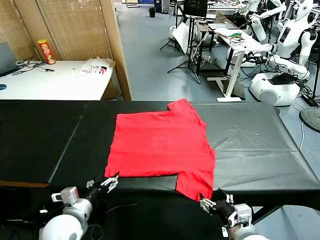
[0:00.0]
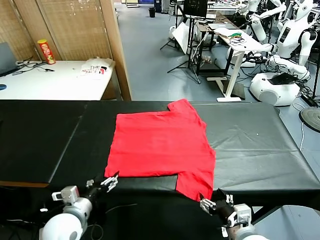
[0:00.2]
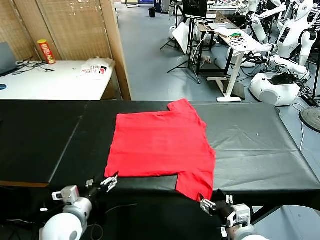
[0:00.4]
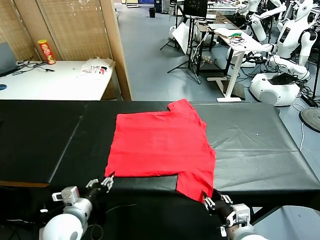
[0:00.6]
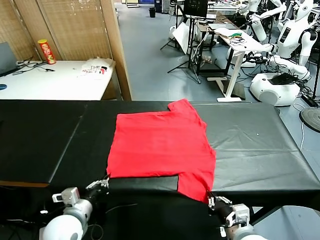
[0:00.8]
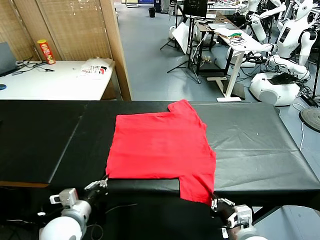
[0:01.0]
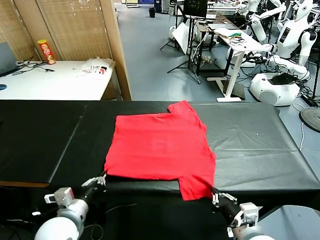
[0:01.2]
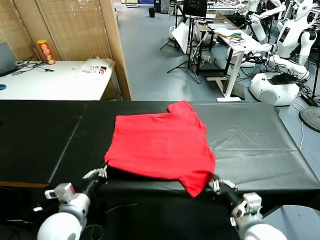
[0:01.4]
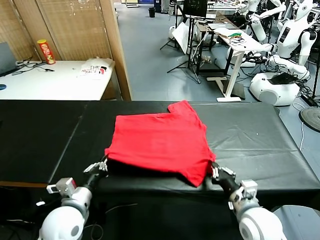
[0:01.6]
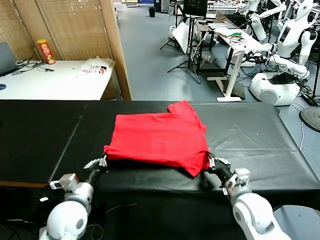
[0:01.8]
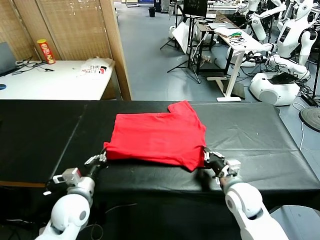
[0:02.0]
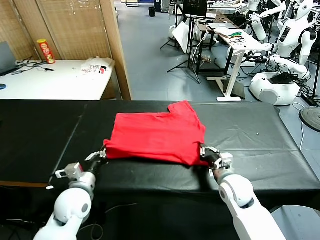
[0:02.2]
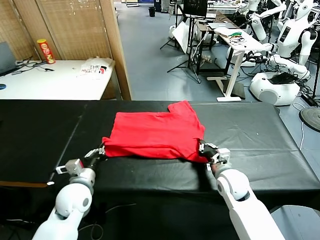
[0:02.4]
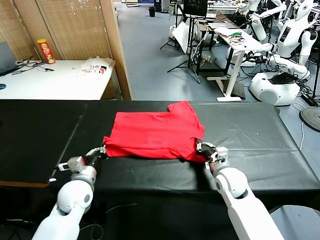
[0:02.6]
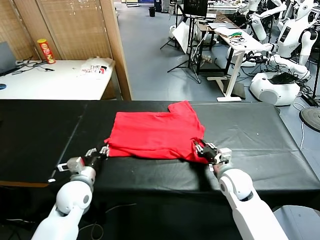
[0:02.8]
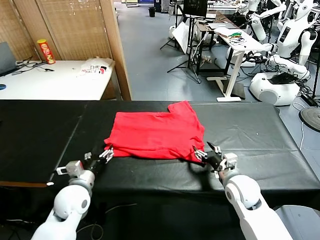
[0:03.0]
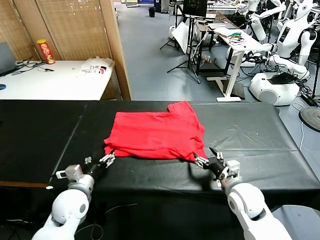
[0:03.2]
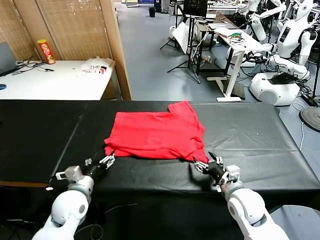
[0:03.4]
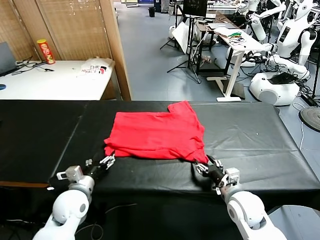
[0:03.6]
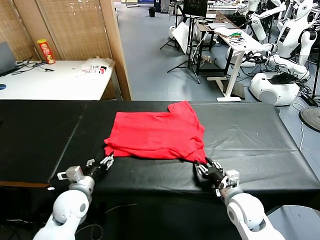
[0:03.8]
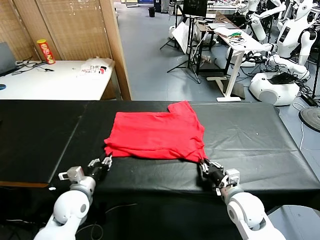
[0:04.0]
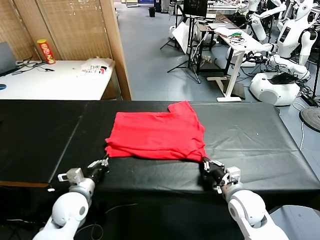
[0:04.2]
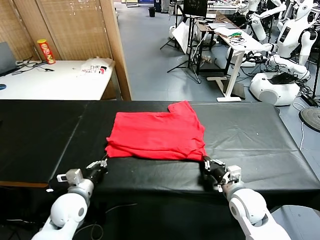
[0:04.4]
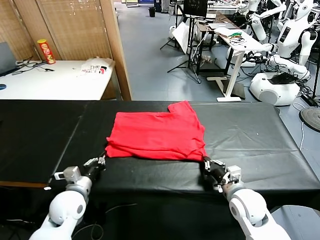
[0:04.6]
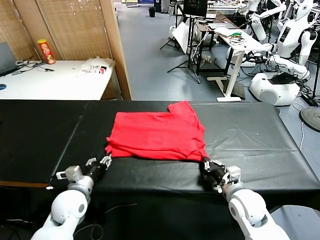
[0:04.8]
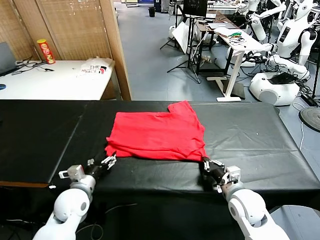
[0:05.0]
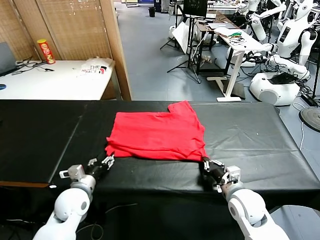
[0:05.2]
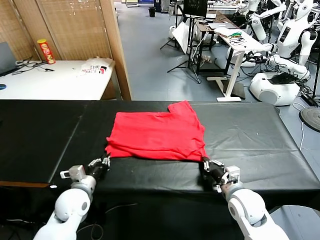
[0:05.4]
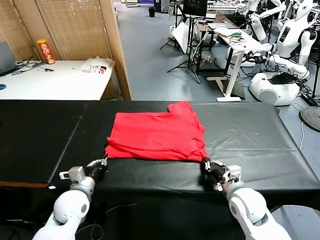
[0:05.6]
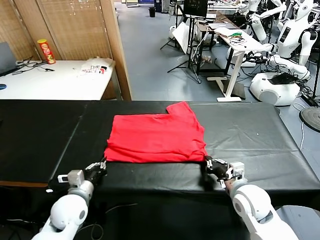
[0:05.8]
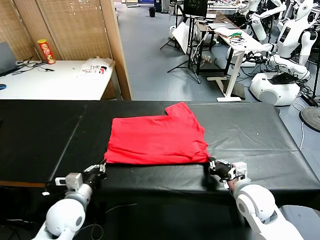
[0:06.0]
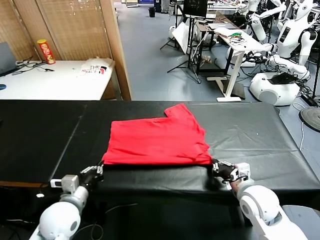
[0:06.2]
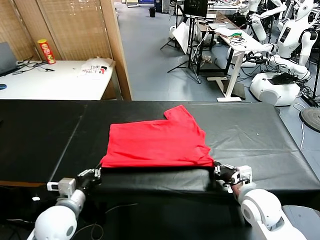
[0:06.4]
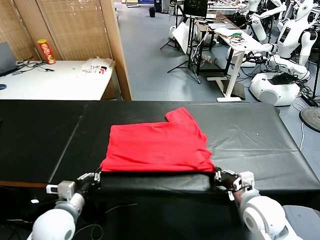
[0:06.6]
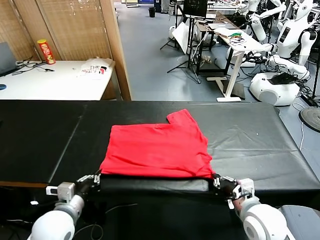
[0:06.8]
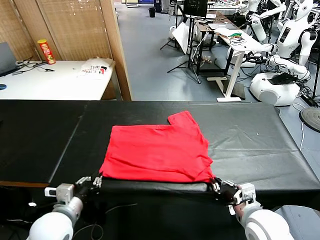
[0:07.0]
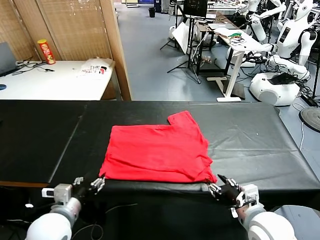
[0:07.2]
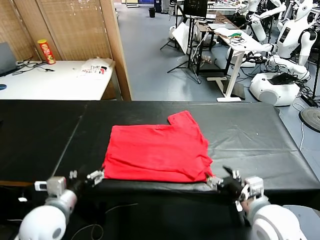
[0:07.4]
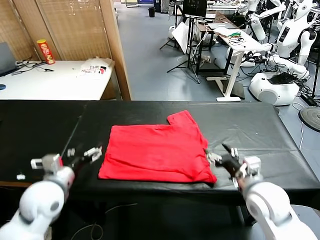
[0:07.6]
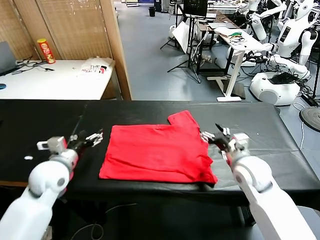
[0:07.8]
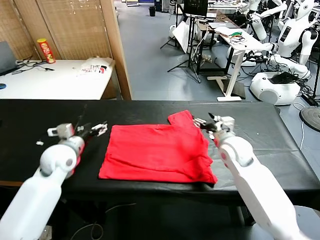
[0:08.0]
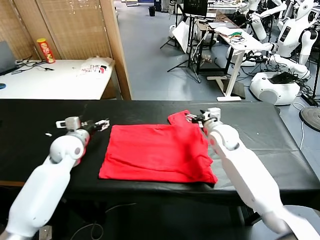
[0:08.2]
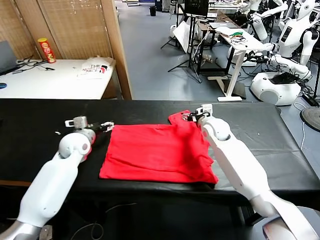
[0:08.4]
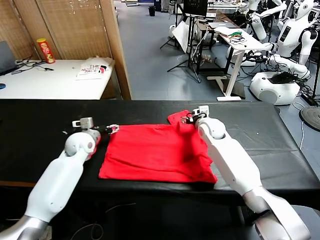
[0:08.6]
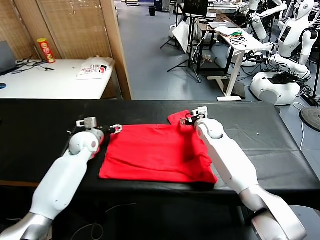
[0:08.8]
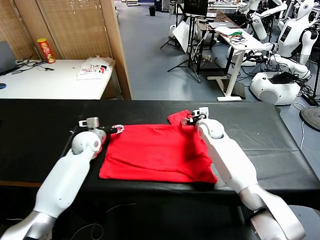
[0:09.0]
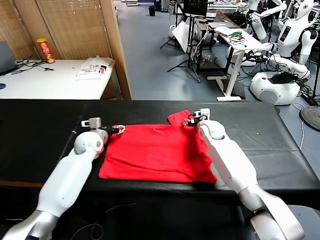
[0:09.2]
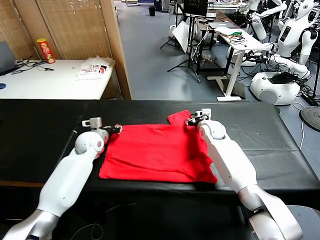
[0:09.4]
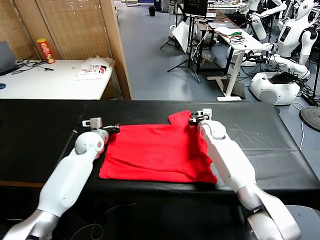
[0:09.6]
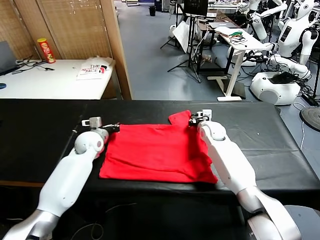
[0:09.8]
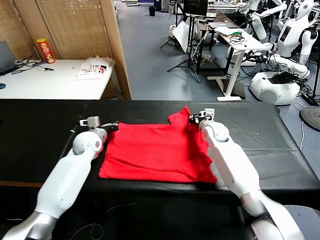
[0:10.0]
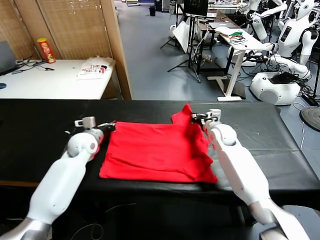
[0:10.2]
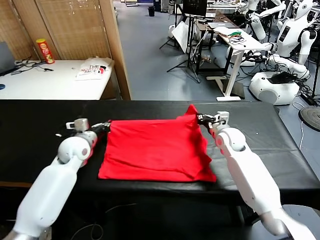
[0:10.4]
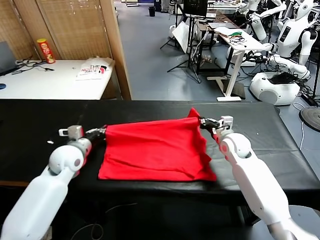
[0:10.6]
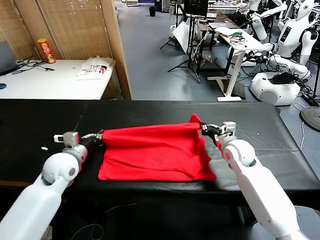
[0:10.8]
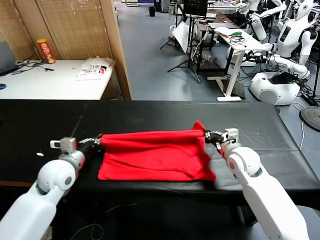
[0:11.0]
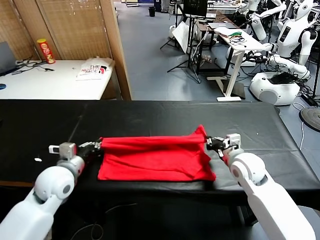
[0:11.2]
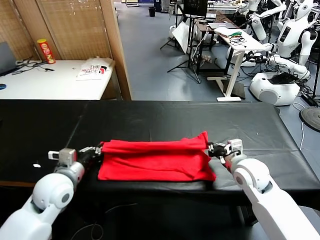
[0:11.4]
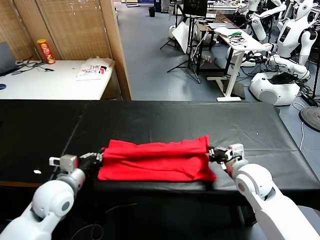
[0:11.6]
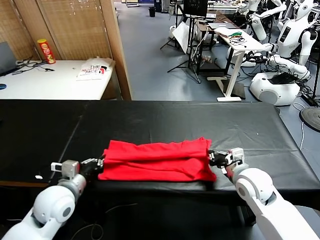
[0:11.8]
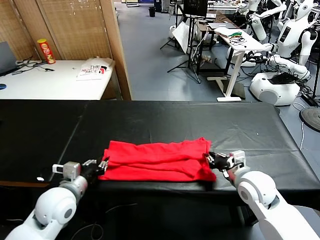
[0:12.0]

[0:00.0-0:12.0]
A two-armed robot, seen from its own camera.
Task of the whole recording: fold and organize the clothes.
Step, 0:00.0 to 0:00.8: use both grippers simultaneously to clamp the lower edge of the clothing fabric.
Step, 0:01.0 to 0:03.2: use both grippers to drag the lower edge of the fabric forward and fold it over the upper edge.
Step, 0:03.4 to 0:07.2: Drag the clothes downward with both gripper.
Step, 0:07.4 to 0:09.6: use both grippers simultaneously to clamp the upper edge of the clothing fabric.
0:01.6 to 0:03.0: The right gripper reaches roughly 10 cm forward, then returns, and opens; the left gripper shifts by roughly 5 cm, and opens.
0:03.0 to 0:04.4: The left gripper closes its fingers; the right gripper closes its fingers.
0:04.4 to 0:06.0: The left gripper opens and closes again.
0:06.0 to 0:07.6: The right gripper is displaced forward and upward by roughly 10 cm, and opens its fingers. The left gripper shifts approximately 10 cm upward and forward, and opens up.
0:07.6 to 0:09.0: The two grippers go roughly 20 cm forward.
0:09.0 to 0:10.4: The left gripper travels backward by about 10 cm, and closes its fingers. The right gripper heads backward and to the right, covering approximately 10 cm, and closes.
0:10.4 to 0:12.0: Both grippers move backward, roughly 15 cm. The left gripper opens its fingers, while the right gripper opens.

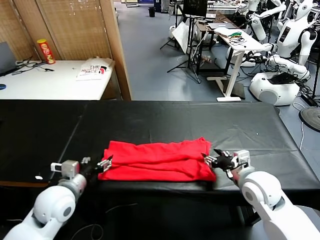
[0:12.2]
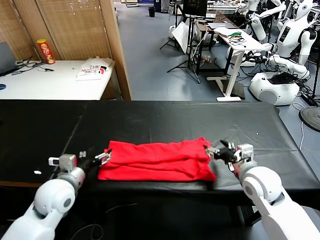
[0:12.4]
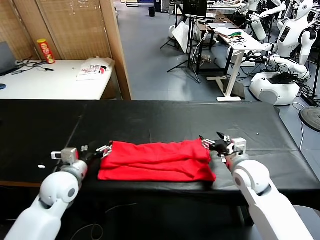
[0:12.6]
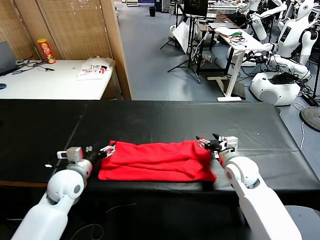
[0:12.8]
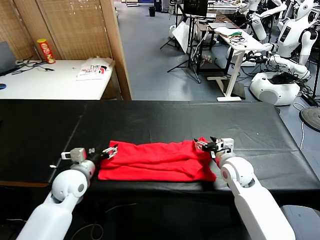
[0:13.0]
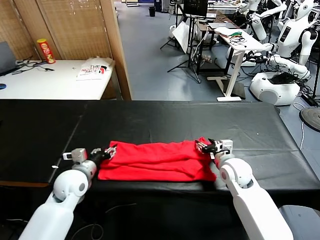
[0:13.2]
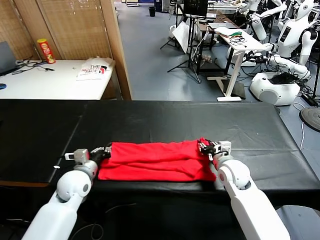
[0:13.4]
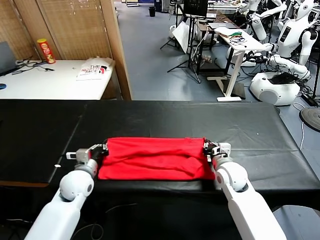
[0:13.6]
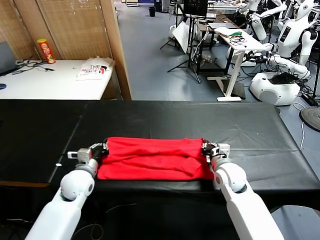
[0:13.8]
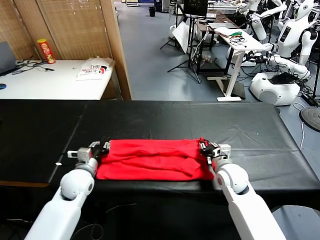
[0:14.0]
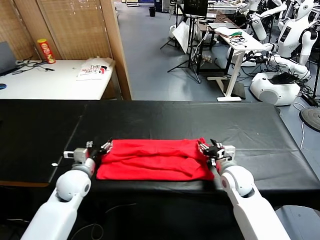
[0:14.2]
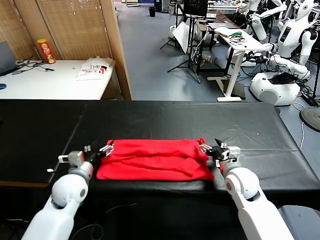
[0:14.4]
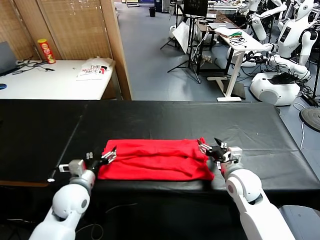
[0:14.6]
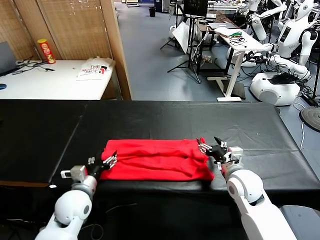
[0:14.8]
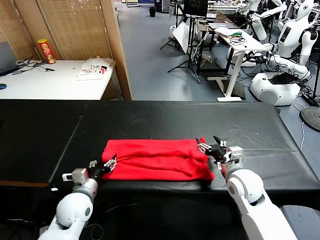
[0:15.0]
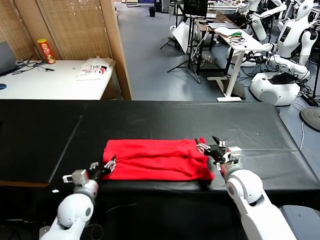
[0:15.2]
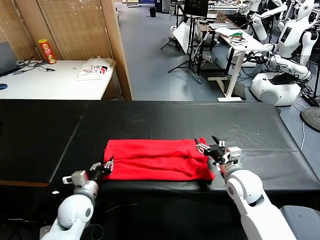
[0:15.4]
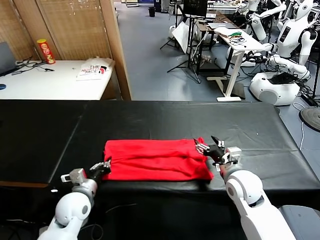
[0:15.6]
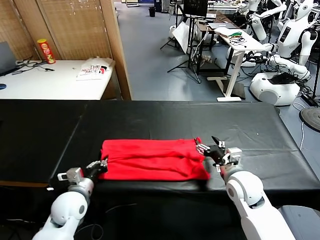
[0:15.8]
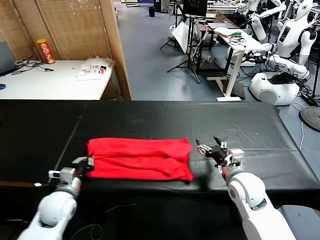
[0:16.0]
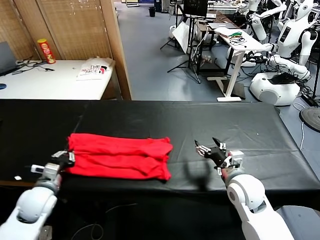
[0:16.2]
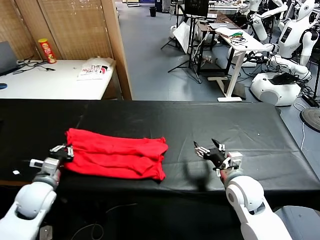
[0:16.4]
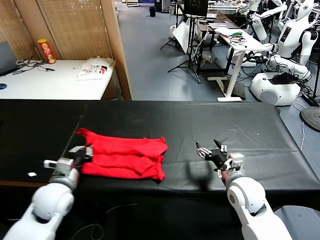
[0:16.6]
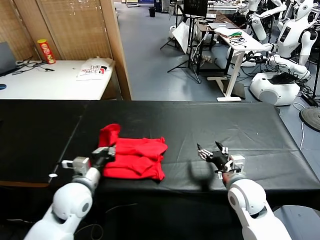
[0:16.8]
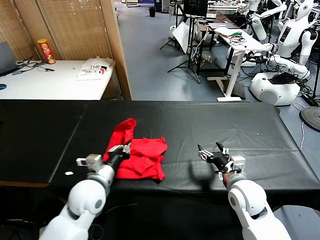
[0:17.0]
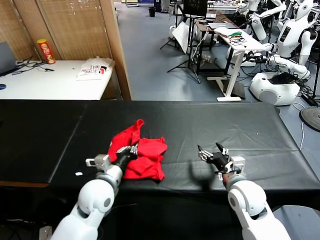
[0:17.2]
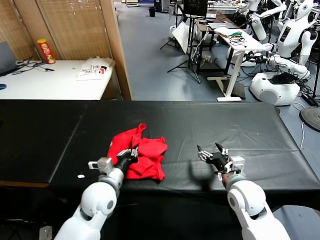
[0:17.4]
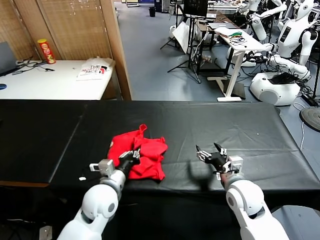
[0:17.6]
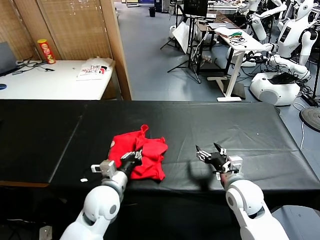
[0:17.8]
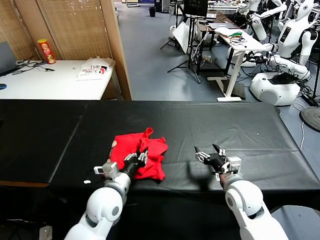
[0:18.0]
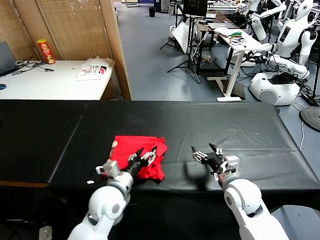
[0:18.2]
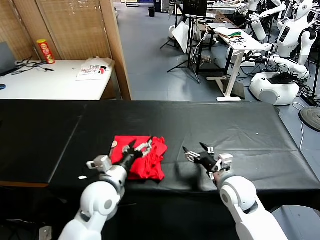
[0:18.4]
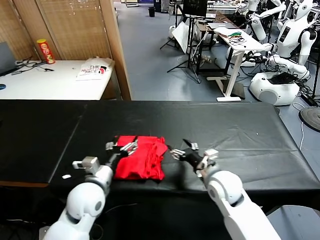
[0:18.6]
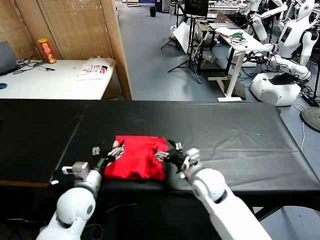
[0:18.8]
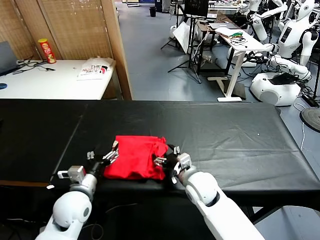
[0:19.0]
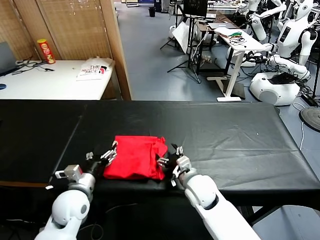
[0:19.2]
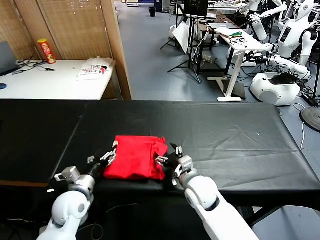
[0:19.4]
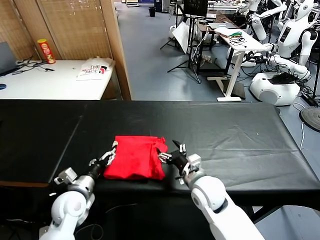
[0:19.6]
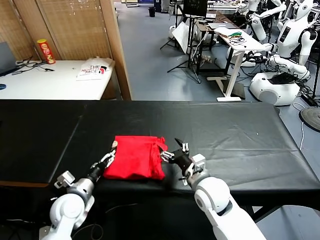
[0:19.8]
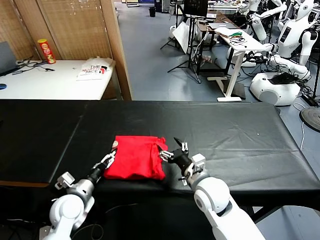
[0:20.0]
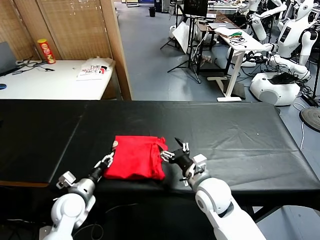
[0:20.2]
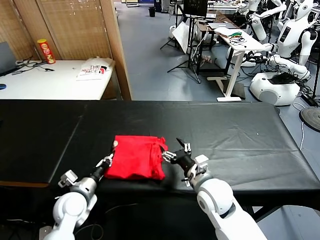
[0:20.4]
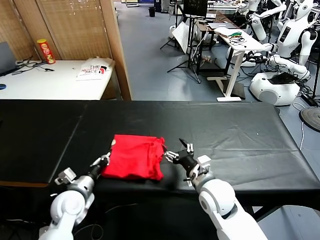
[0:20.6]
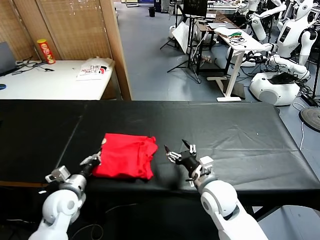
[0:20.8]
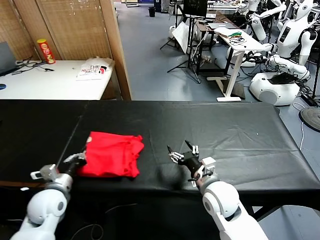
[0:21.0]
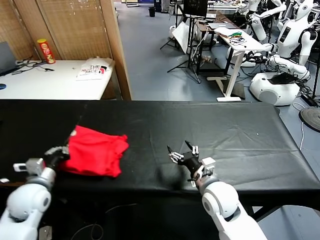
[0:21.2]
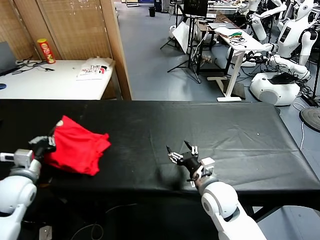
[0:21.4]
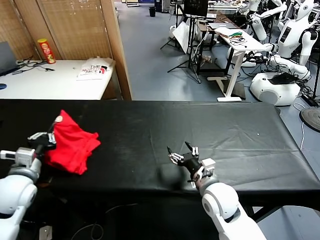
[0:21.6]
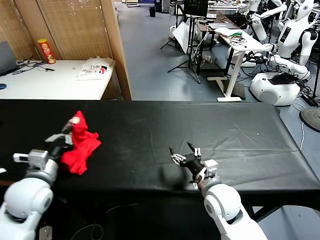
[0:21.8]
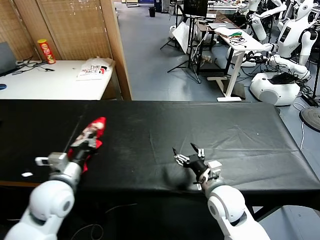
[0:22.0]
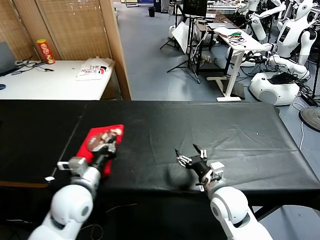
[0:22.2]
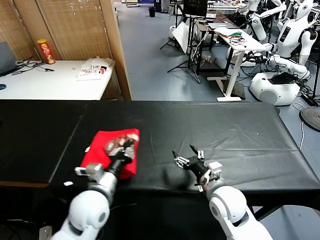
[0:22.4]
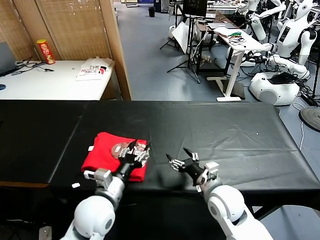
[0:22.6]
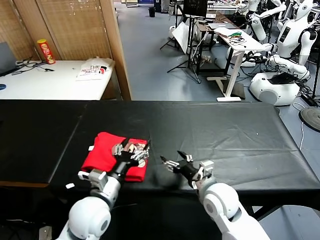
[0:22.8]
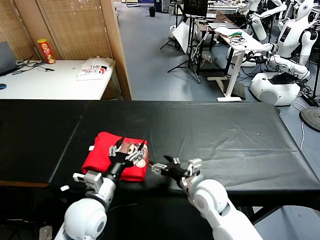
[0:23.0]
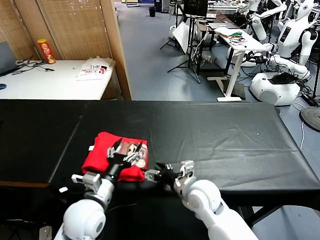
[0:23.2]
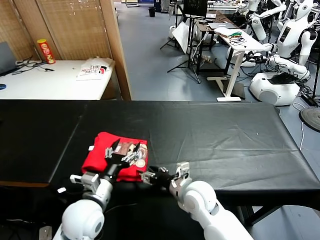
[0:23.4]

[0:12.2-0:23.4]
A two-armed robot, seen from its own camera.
Task of the whole recording: fold and organize the clothes.
Step, 0:12.6 to 0:15.8: use the left gripper to clamp the left edge of the fabric.
Step, 0:16.0 to 0:18.2: use the left gripper to drag the left edge of the fabric to the left and folds it over the right edge.
Step, 0:18.6 to 0:22.6: Flip the folded clothes over with left gripper.
0:12.2 to 0:13.8: The right gripper goes approximately 10 cm downward and forward, and closes up, while the left gripper travels forward and downward by approximately 10 cm, and closes its fingers.
0:13.8 to 0:15.4: The left gripper heads backward, covering approximately 5 cm, and opens and closes again. The right gripper shifts by roughly 5 cm, and opens its fingers.
0:15.4 to 0:17.0: The left gripper moves upward and to the right, about 10 cm.
0:17.0 to 0:18.6: The left gripper opens. The right gripper goes about 5 cm to the left.
0:18.6 to 0:20.2: The left gripper shifts about 10 cm to the left and downward, and closes its fingers.
0:20.2 to 0:21.8: The left gripper moves upward, some 15 cm, and closes its fingers.
0:21.8 to 0:23.4: The left gripper travels to the right by about 15 cm, and opens its fingers; the right gripper heads to the left, covering roughly 5 cm.
